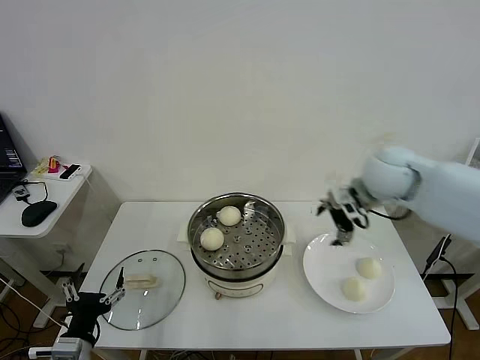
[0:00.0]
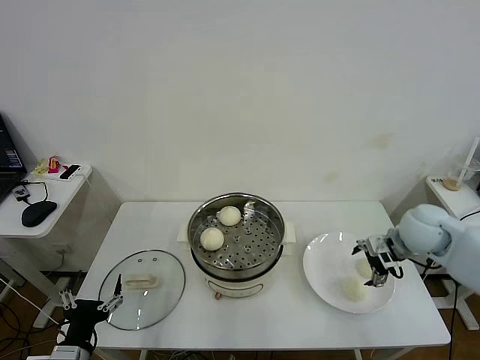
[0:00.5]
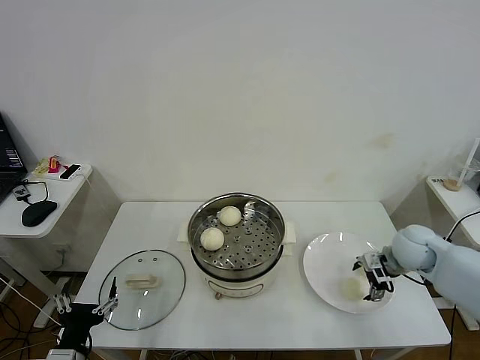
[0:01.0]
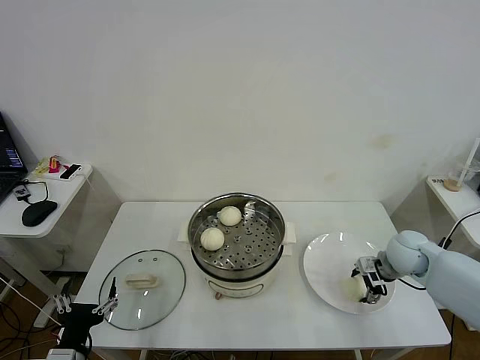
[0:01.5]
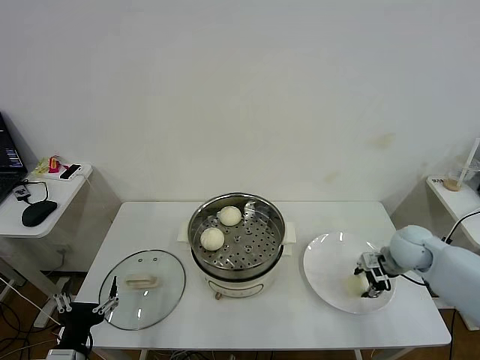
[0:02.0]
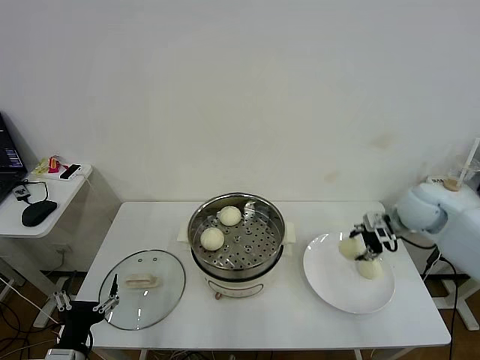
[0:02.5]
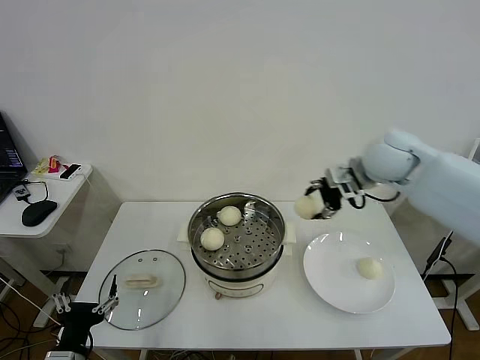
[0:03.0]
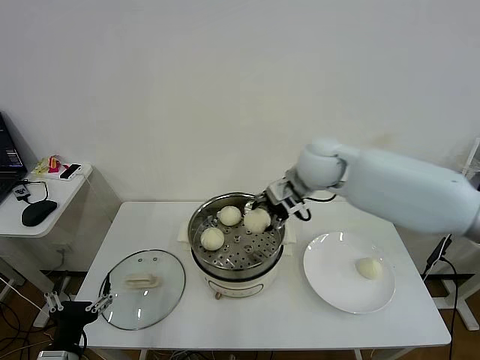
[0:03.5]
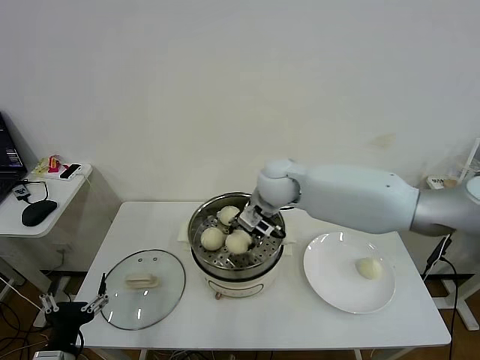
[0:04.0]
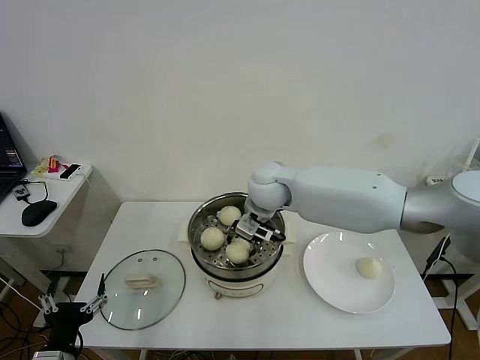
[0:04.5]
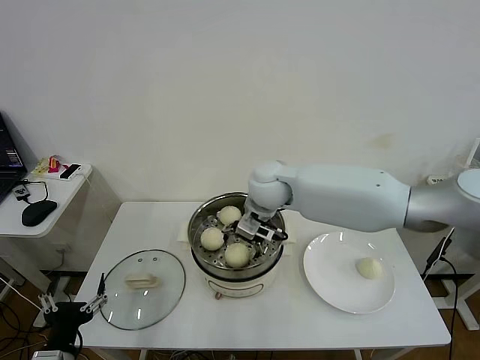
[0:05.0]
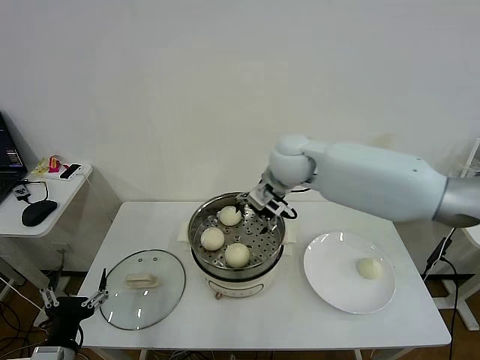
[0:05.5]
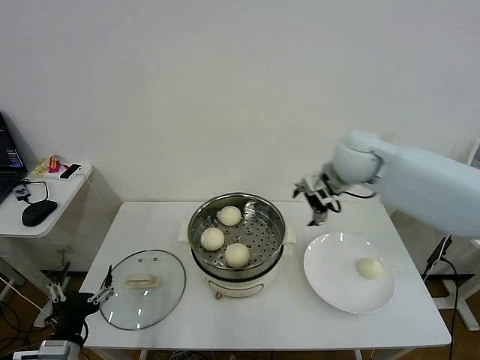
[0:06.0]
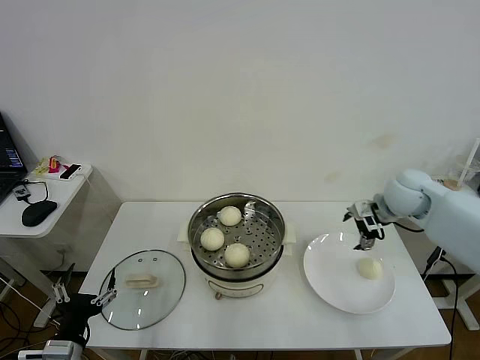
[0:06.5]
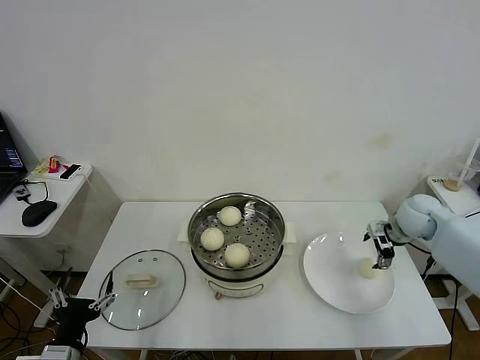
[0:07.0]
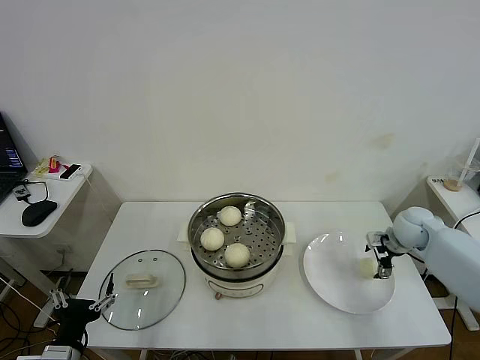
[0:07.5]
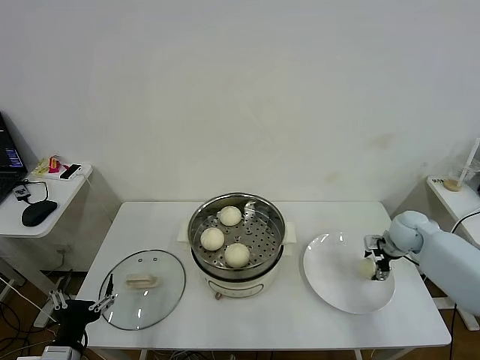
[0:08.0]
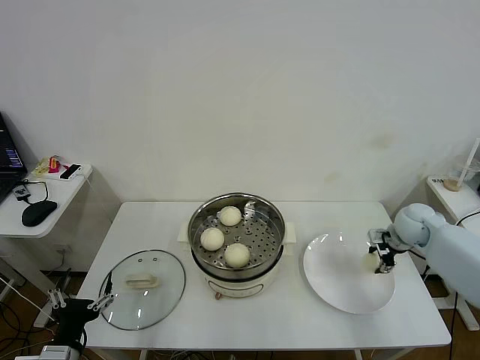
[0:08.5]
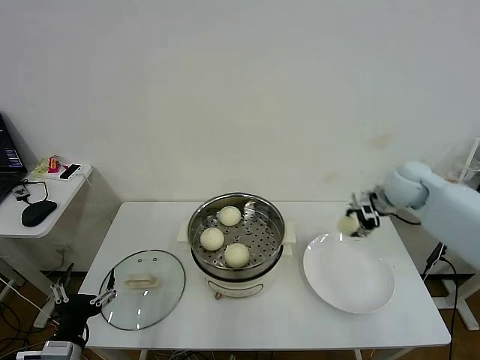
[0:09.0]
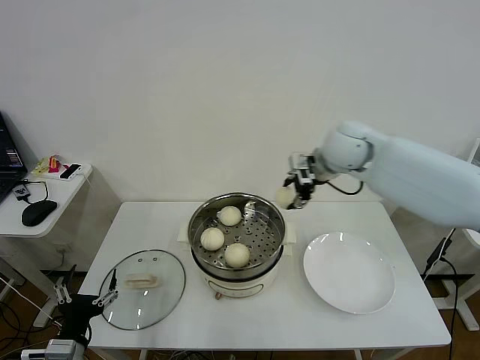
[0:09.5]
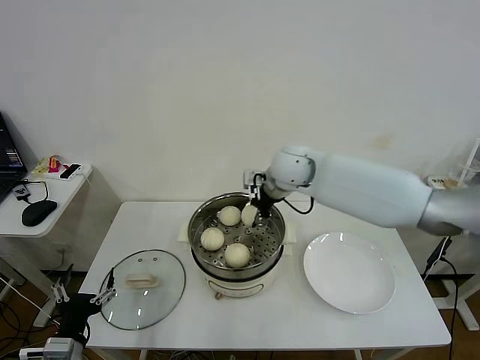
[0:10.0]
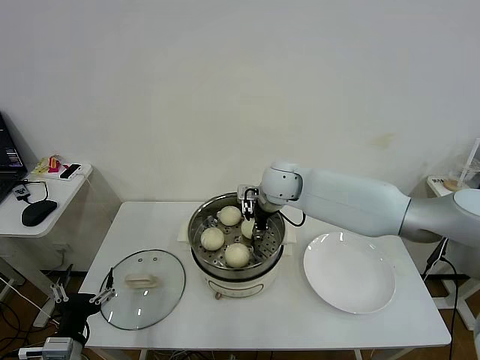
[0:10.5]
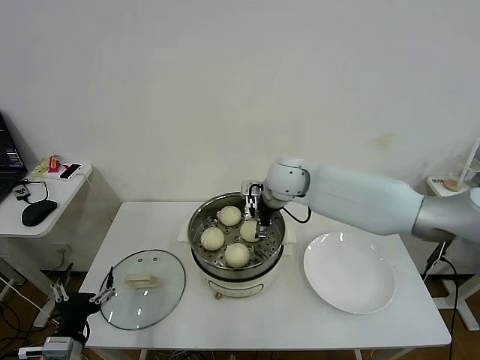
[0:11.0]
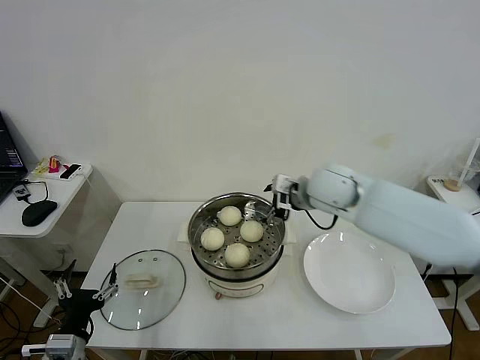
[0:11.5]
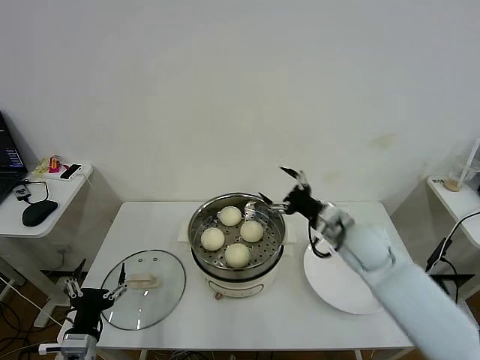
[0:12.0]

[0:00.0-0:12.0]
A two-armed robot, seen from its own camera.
Task of the whole recording: take steamed baozi put them in steamer then cover it.
Step, 0:00.0 to 0:01.5: Grasp the baozi in the plate with right gripper.
Step, 0:02.0 to 0:05.0: Place the baozi on the steamer with right gripper.
Step, 0:05.5 to 0:08.0: Grasp the baozi in the plate with right gripper.
Step, 0:08.5 to 0:11.0: Place the baozi on the steamer with right gripper.
0:00.0 to 0:02.0: The right gripper is displaced downward and to the right by approximately 20 cm, and closes its fingers.
0:02.0 to 0:04.0: The right gripper heads to the left, covering approximately 30 cm.
0:04.0 to 0:06.0: The right gripper travels to the right by roughly 20 cm, and opens.
0:06.0 to 0:08.0: The right gripper heads downward and to the right, covering roughly 25 cm, and closes its fingers.
0:08.0 to 0:10.0: The right gripper goes approximately 35 cm to the left and upward, and closes.
0:10.0 to 0:12.0: The right gripper goes approximately 25 cm to the right, backward and downward, and opens up.

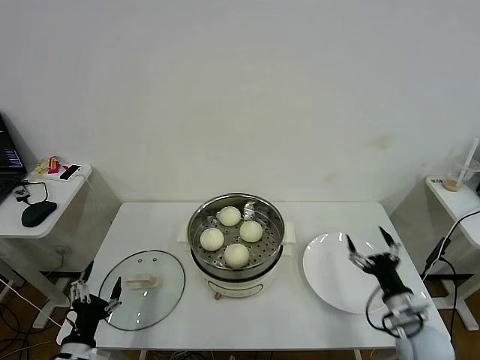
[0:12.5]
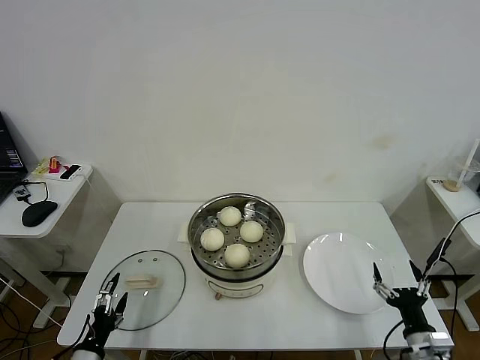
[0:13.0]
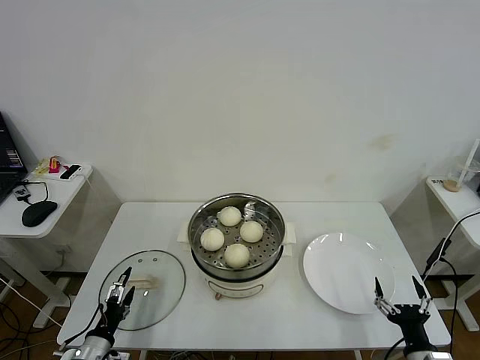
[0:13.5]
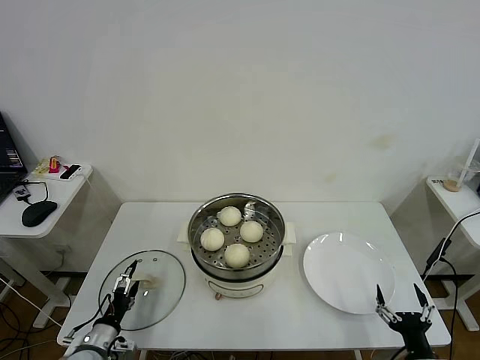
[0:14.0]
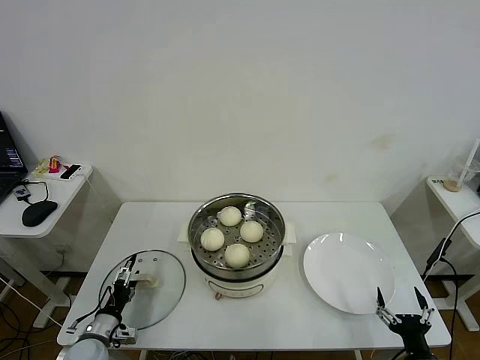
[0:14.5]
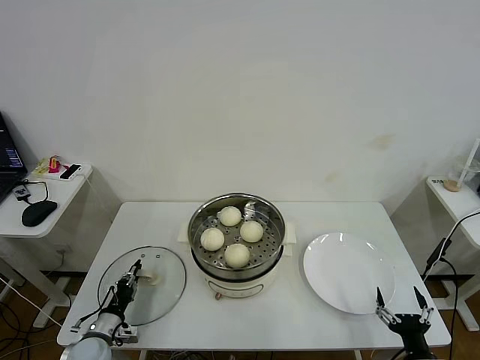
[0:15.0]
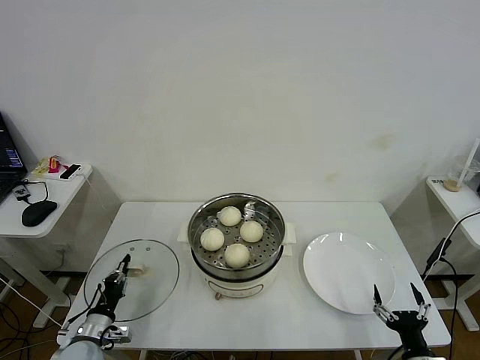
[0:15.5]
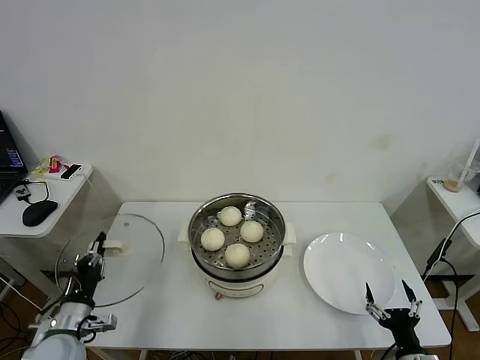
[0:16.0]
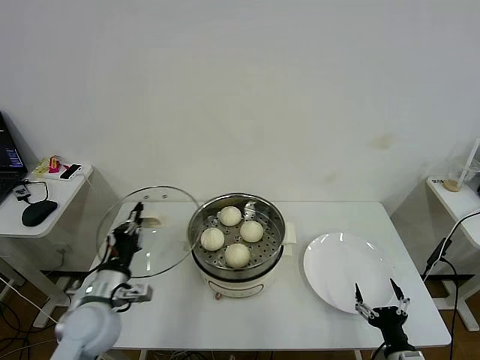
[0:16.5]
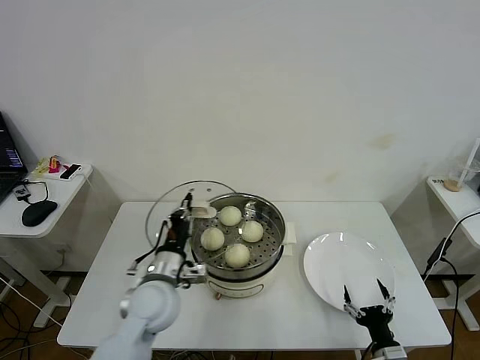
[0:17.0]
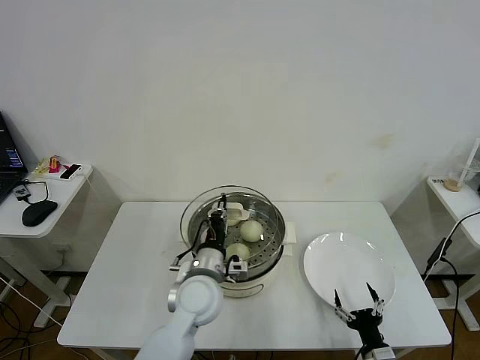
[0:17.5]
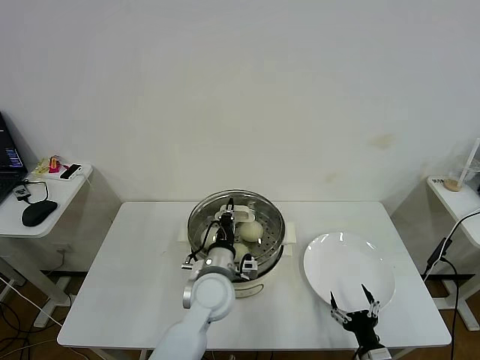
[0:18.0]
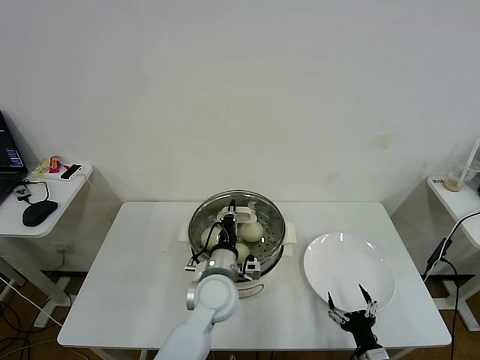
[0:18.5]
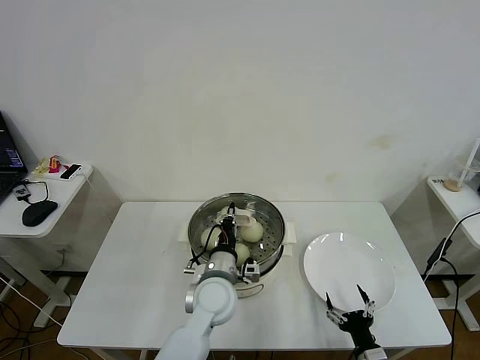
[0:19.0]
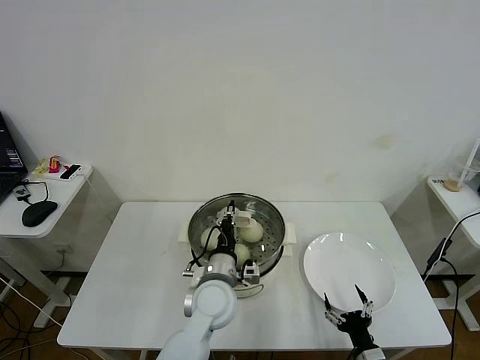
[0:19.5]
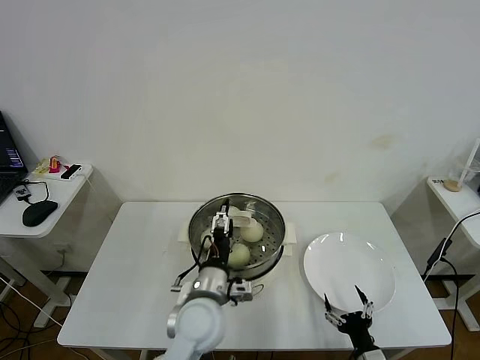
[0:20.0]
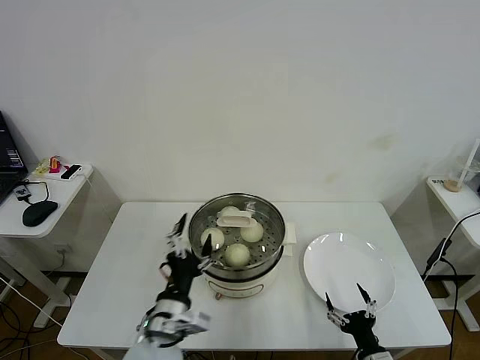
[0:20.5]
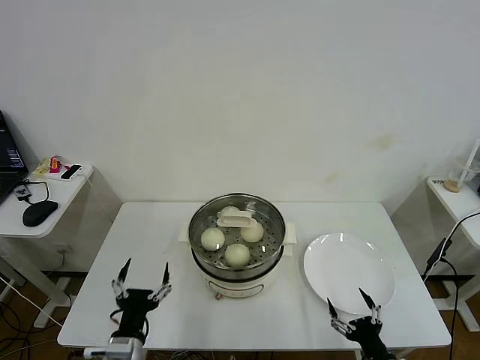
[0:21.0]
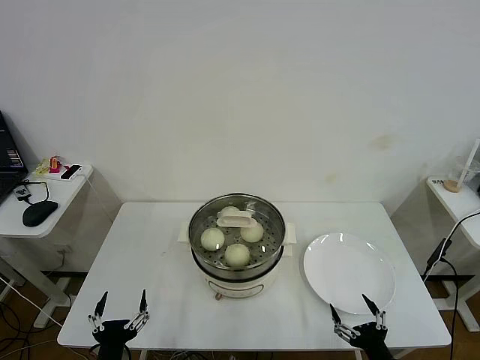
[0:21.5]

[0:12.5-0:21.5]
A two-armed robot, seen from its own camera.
Task of the whole recording: take steamed baozi put them in steamer then cover it.
Step, 0:12.5 to 0:15.0: Grasp the pot lid with left gripper.
Step, 0:15.5 to 0:20.0: Place the pot lid on the steamer with left gripper.
0:12.5 to 0:14.5: The right gripper goes approximately 15 cm backward and downward. The left gripper heads forward and downward, covering approximately 10 cm.
0:14.5 to 0:17.0: The right gripper changes place by approximately 5 cm. Meanwhile the left gripper is displaced to the right and upward by about 25 cm, and closes.
0:17.0 to 0:19.5: The left gripper is displaced to the right by some 15 cm.
0:19.5 to 0:21.5: The left gripper is displaced backward and to the left by roughly 30 cm, and opens. Meanwhile the right gripper moves upward, some 5 cm.
